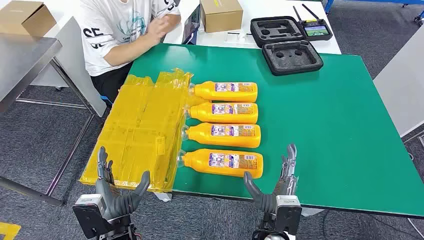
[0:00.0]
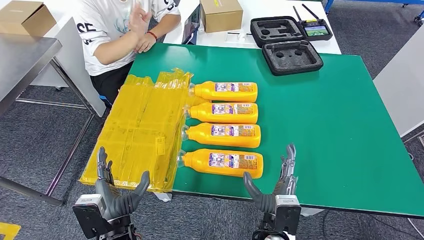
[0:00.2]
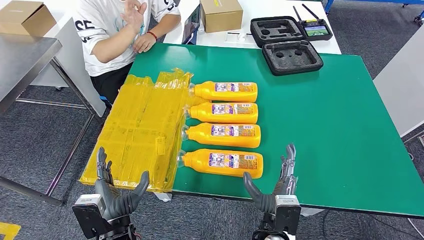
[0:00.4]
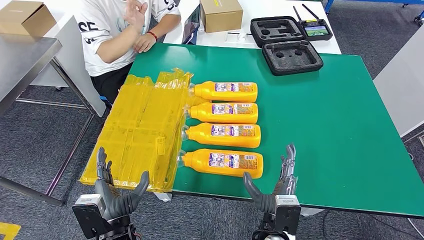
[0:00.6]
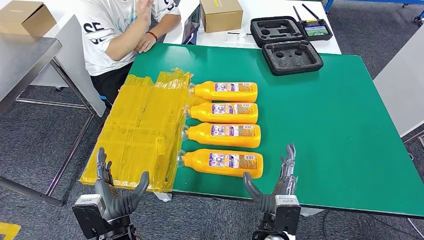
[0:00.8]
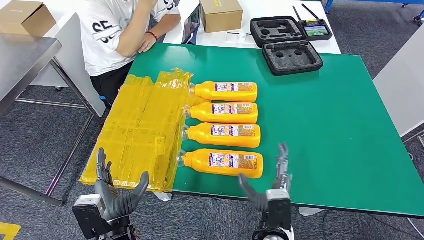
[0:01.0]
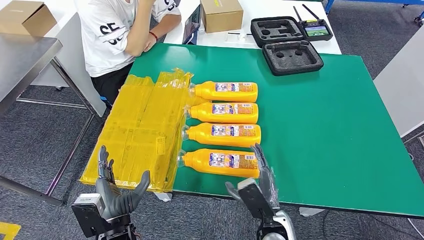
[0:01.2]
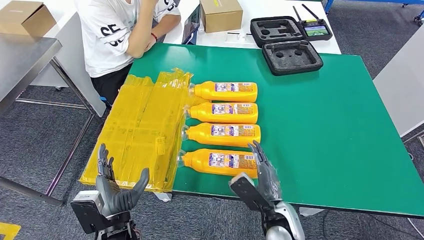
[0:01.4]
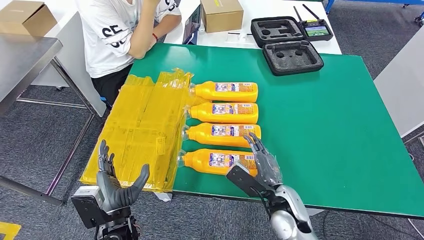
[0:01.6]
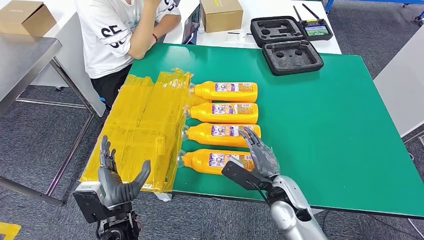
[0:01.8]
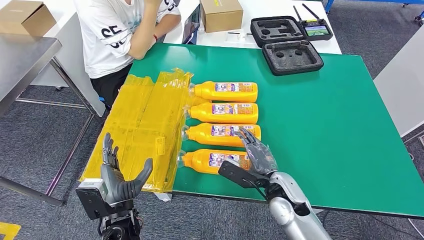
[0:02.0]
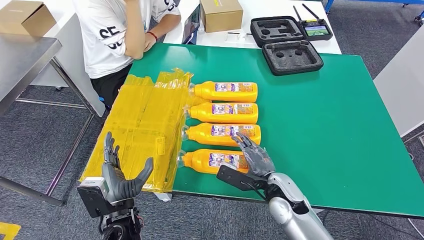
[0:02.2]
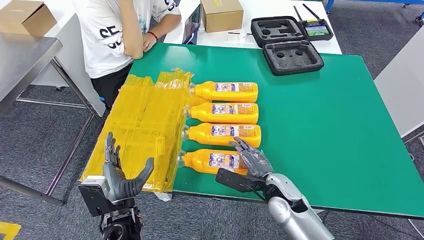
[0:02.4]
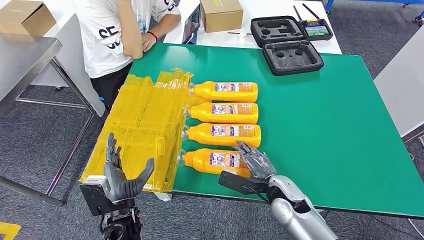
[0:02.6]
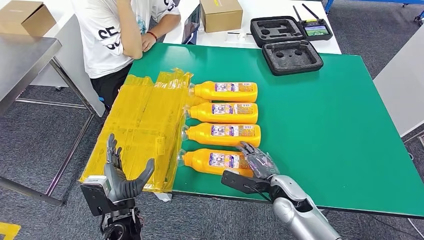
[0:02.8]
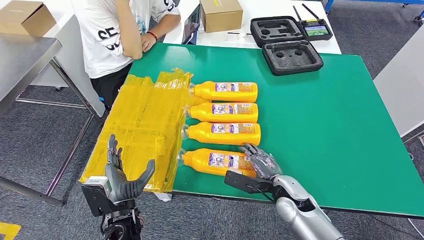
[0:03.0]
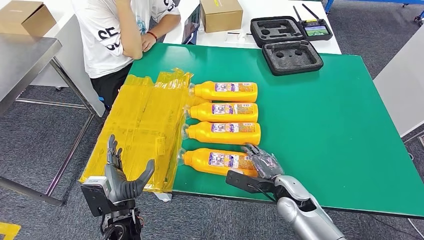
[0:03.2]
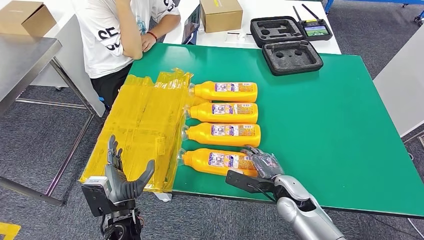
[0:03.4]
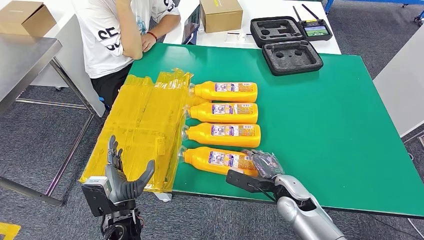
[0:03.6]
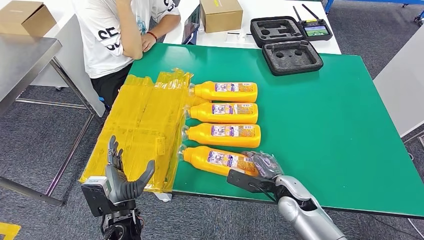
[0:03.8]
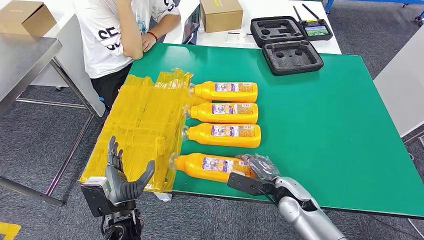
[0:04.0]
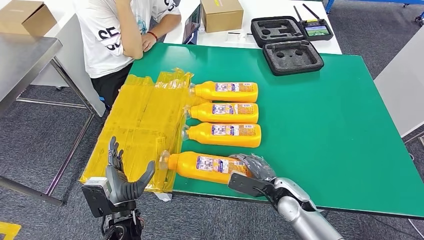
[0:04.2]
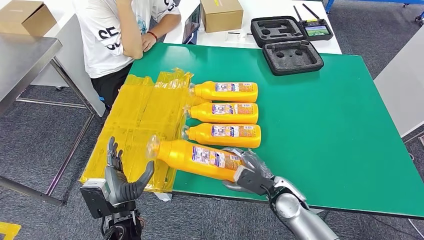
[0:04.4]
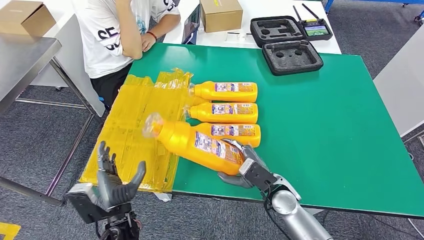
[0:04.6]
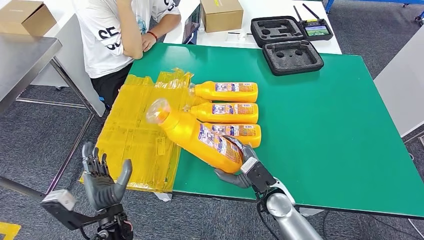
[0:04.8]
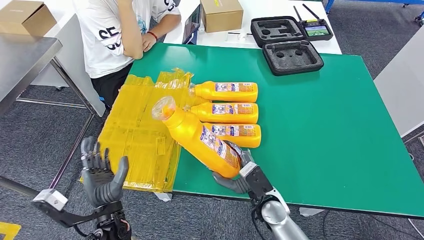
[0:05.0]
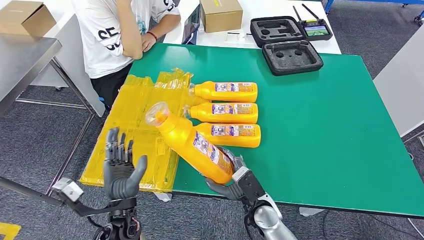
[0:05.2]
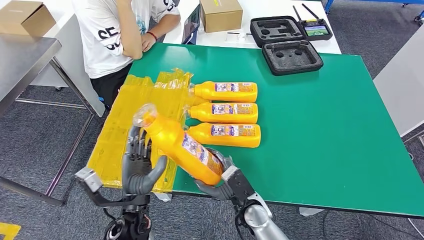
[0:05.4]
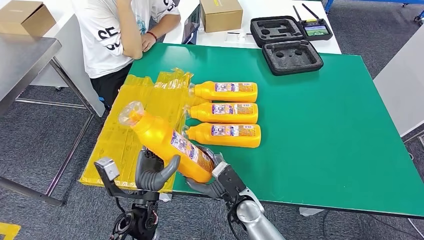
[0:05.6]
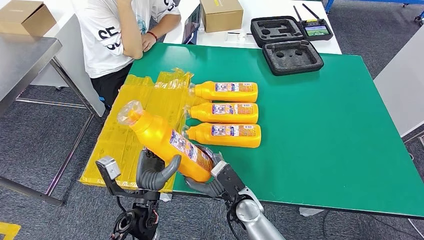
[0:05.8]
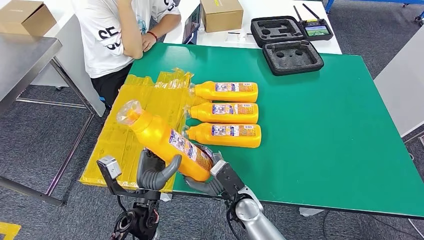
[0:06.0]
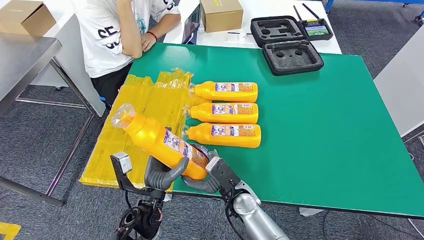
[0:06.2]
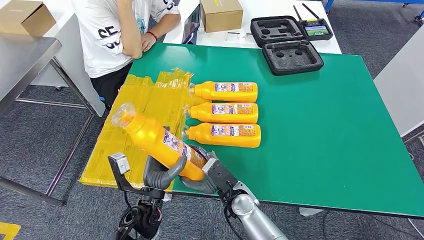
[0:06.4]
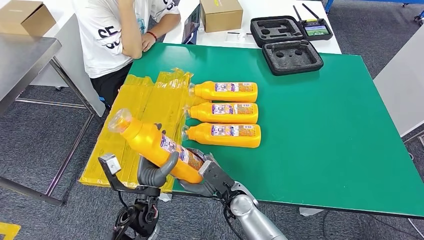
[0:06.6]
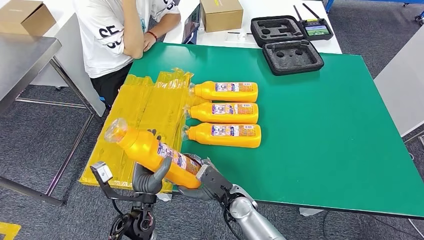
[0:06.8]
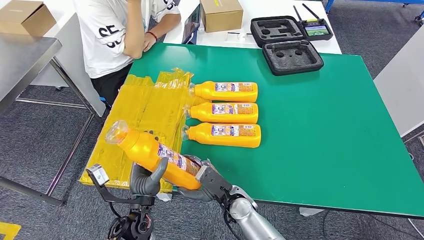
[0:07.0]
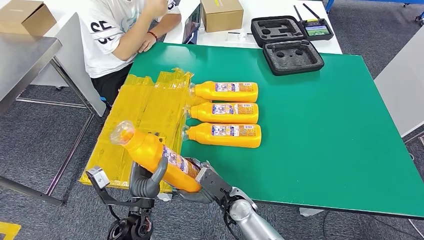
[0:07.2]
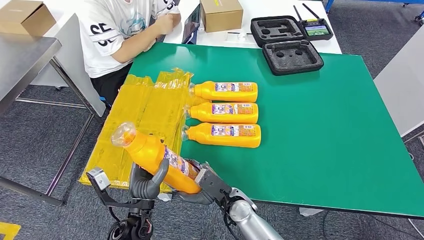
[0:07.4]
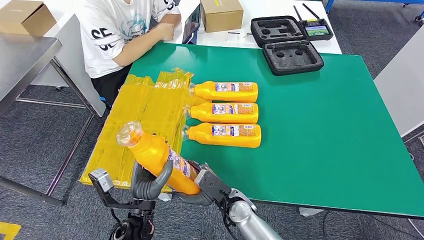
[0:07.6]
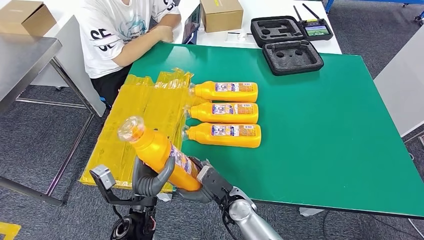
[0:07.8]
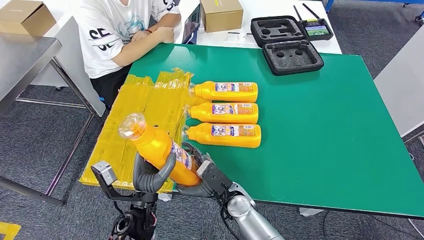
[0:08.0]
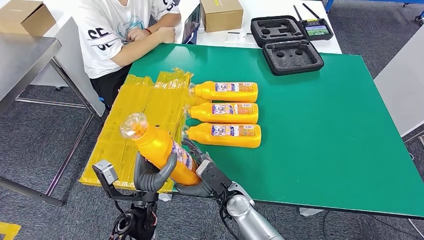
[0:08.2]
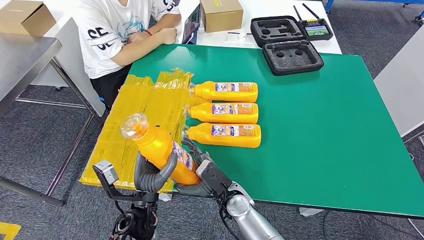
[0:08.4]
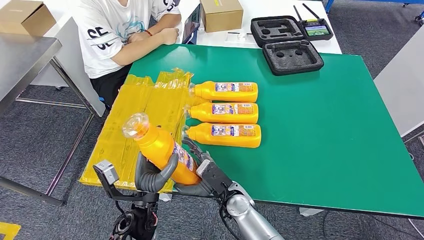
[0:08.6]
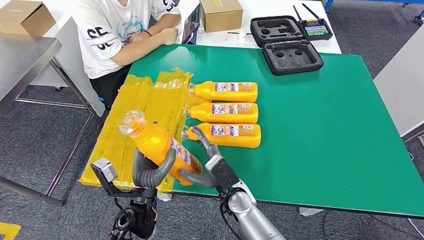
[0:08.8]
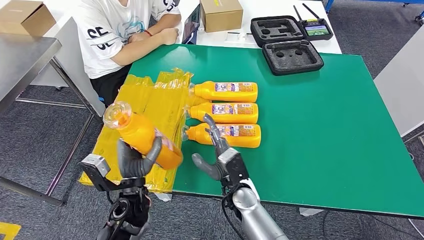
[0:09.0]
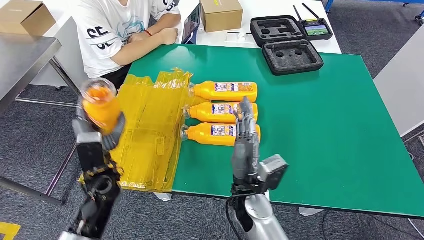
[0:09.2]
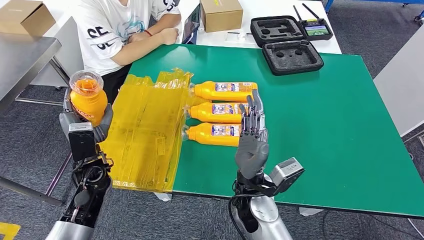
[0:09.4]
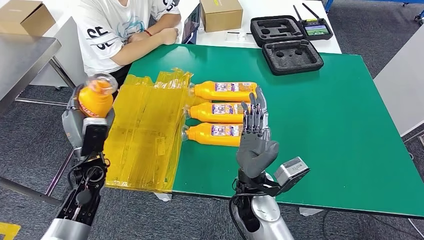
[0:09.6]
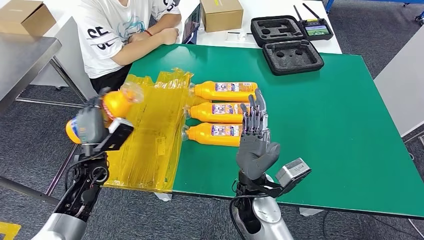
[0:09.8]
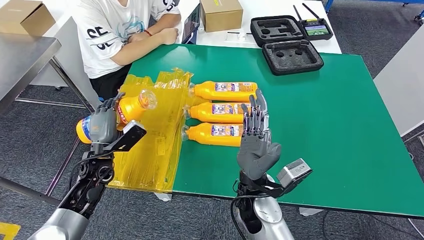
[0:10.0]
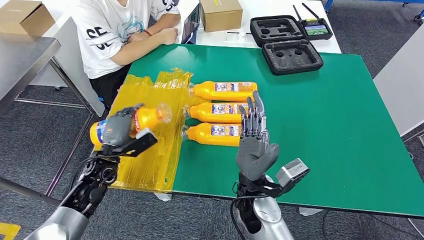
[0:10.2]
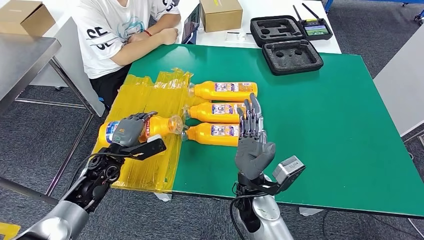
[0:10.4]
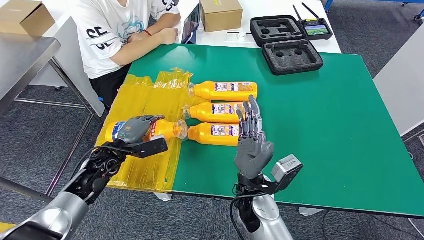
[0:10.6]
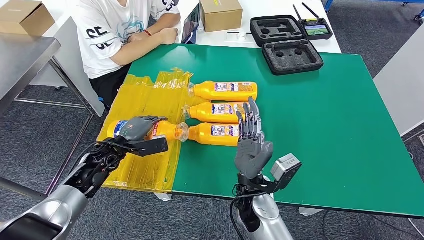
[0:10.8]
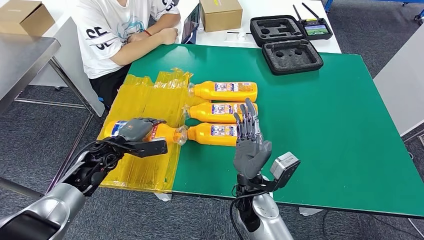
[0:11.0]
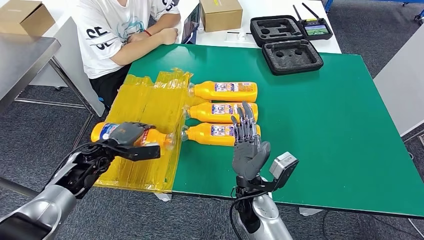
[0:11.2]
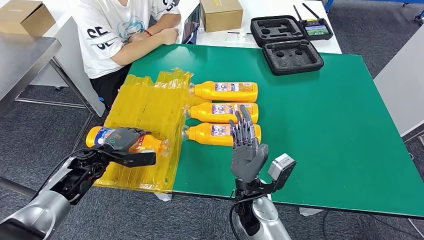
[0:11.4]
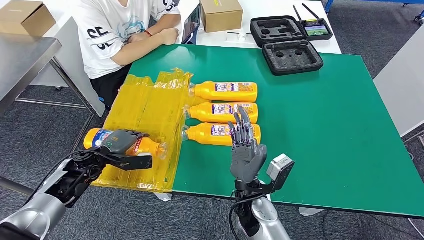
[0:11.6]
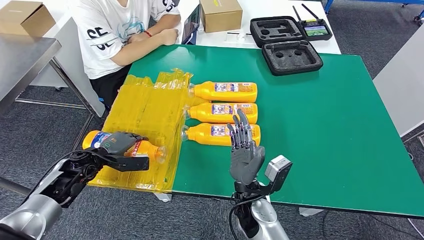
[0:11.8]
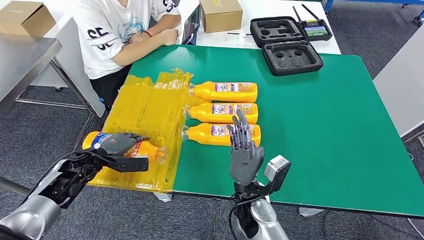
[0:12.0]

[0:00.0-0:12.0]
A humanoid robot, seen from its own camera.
Step, 0:00.0 to 0:07.4: Take the fast-moving consumer goods bottle from the table.
Step, 0:07.6 to 0:11.6: Flip the fast-moving consumer goods bottle to the front side.
0:01.6 to 0:03.0: The right hand shifts by roughly 5 cm.
0:04.4 to 0:06.0: The right hand travels to the left by approximately 10 cm; the left hand shifts by about 5 cm.
0:06.0 to 0:07.6: The hands make only small movements.
0:07.6 to 0:09.0: The left hand moves approximately 5 cm. Meanwhile the right hand is displaced upward by some 5 cm.
0:09.0 to 0:10.4: The left hand shifts roughly 15 cm to the left and forward. The right hand goes roughly 5 cm upward.
0:10.4 to 0:12.0: The left hand goes approximately 5 cm to the left.

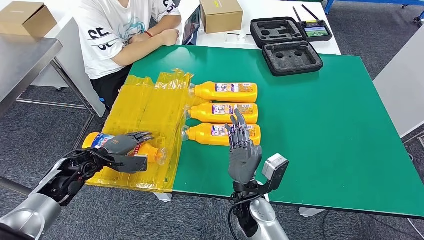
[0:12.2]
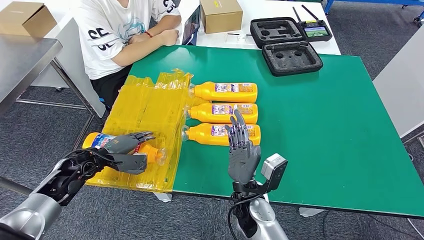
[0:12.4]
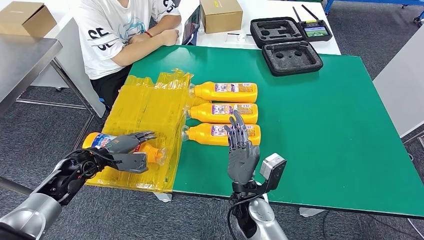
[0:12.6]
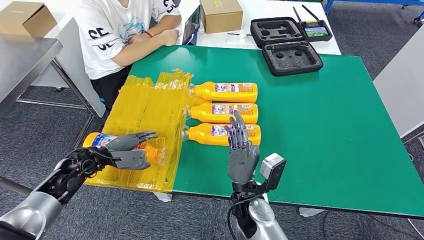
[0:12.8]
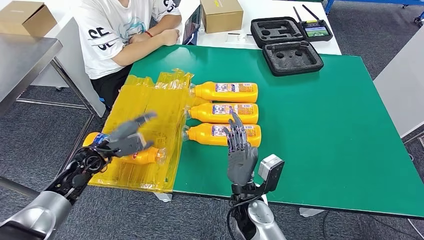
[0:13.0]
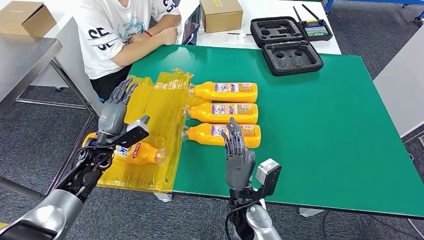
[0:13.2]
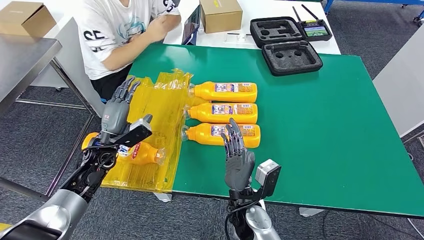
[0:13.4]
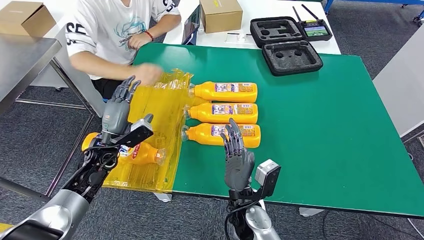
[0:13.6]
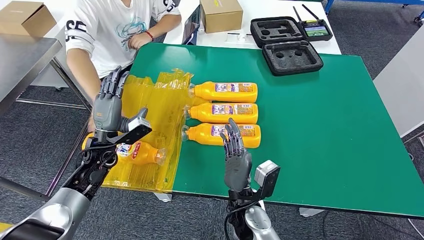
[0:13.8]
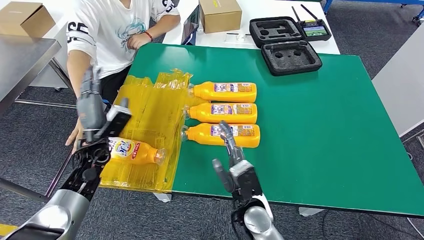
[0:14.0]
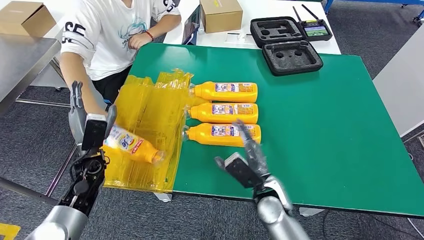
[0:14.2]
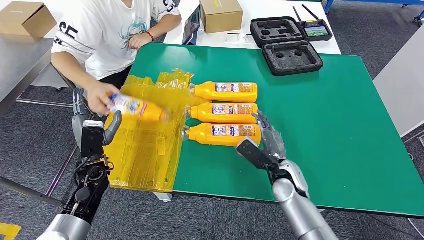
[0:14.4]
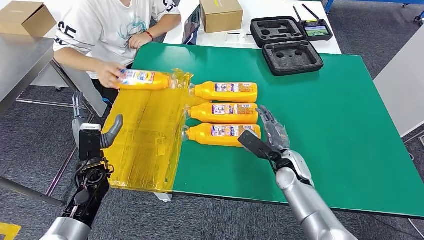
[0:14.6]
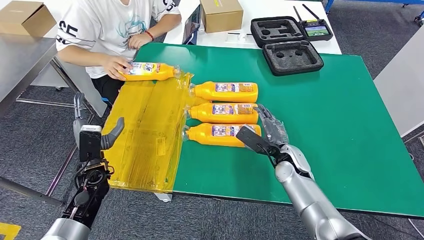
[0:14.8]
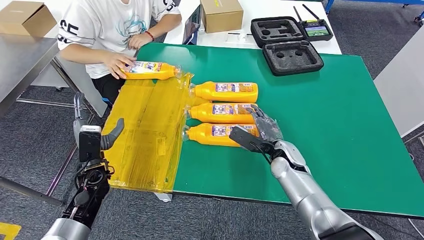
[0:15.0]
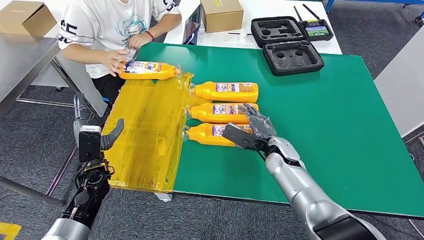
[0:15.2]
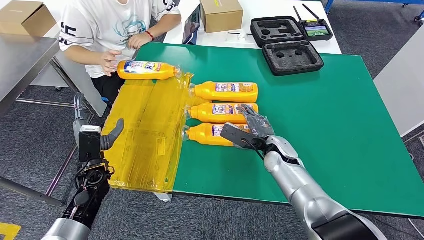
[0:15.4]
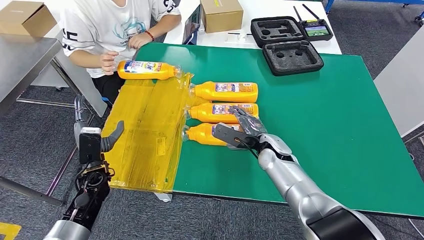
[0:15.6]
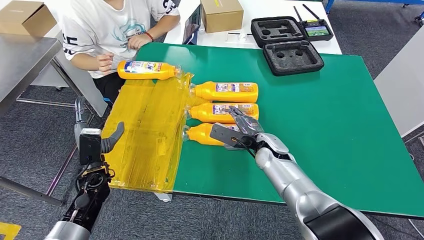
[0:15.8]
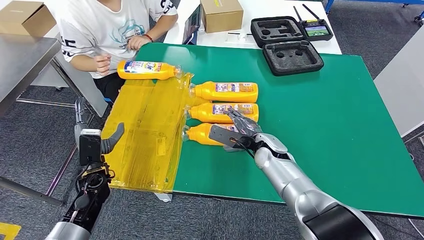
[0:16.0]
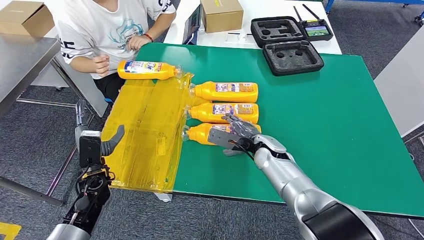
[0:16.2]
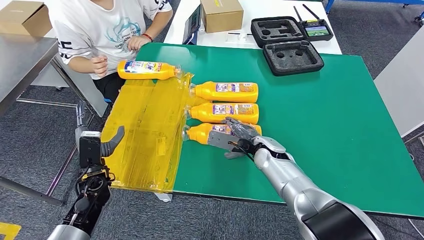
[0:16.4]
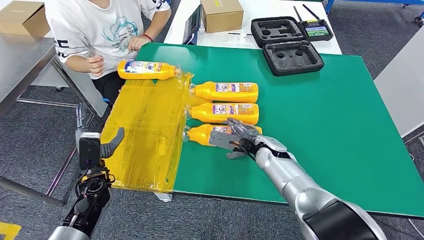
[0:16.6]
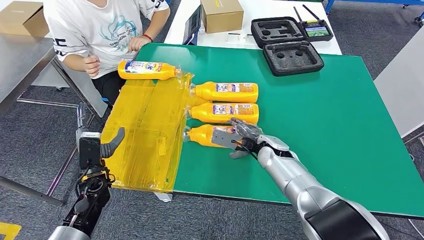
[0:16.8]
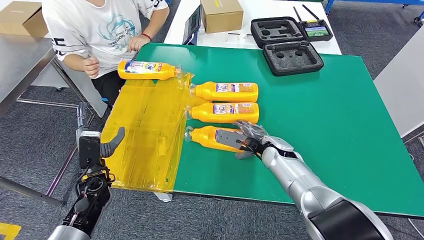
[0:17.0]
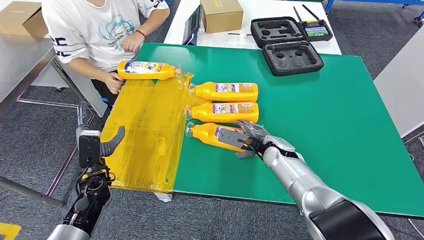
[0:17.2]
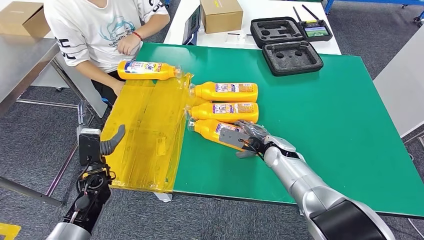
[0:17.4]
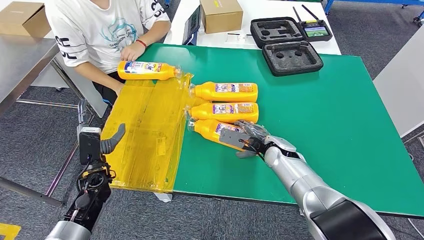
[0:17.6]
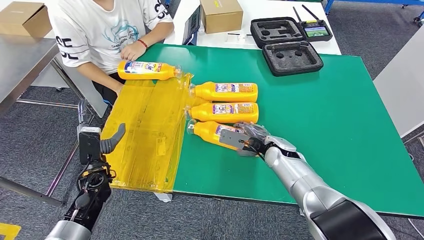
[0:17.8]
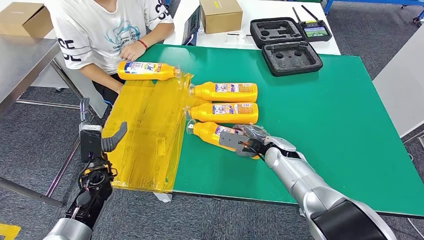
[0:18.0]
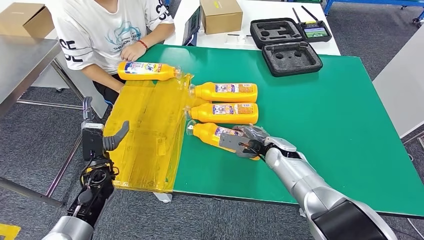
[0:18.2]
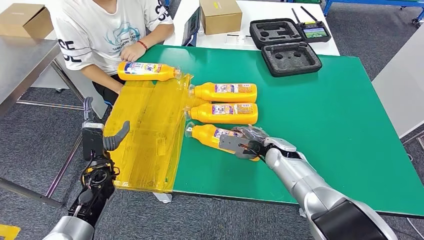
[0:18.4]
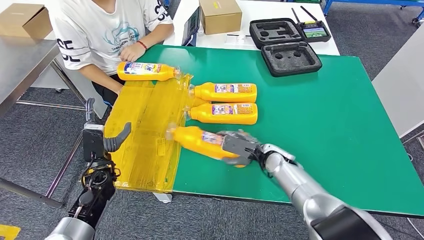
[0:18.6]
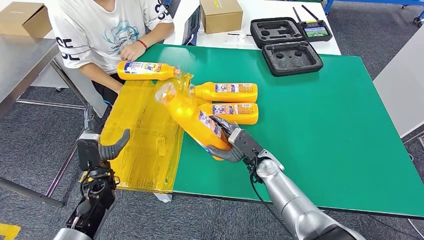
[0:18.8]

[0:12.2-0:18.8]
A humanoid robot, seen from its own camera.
0:12.2 to 0:13.8: The left hand moves to the right, some 5 cm.
0:17.2 to 0:18.8: The right hand changes place by roughly 5 cm.
